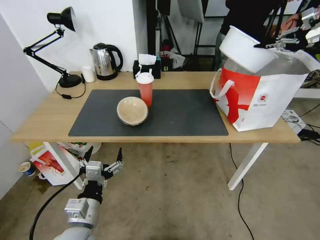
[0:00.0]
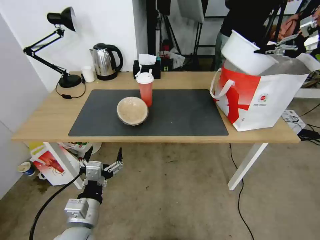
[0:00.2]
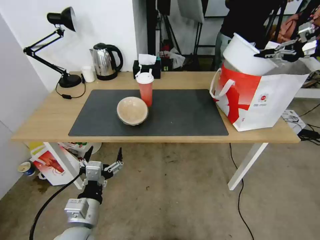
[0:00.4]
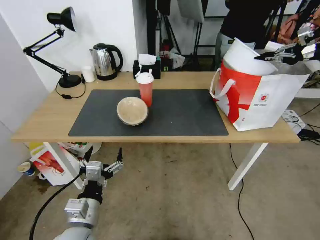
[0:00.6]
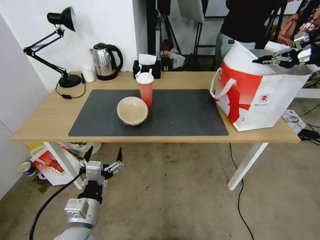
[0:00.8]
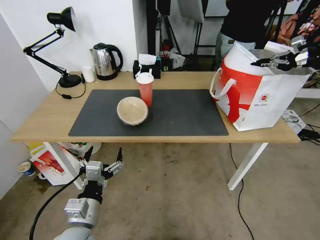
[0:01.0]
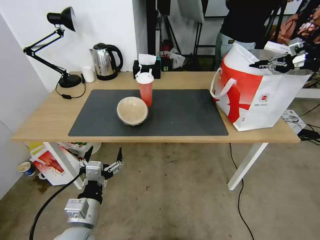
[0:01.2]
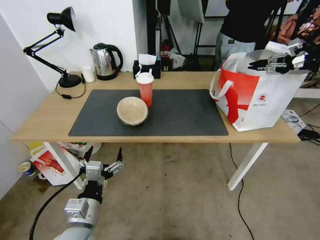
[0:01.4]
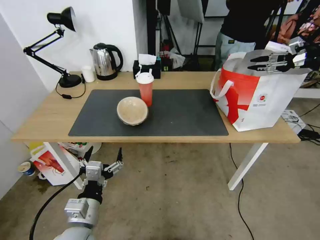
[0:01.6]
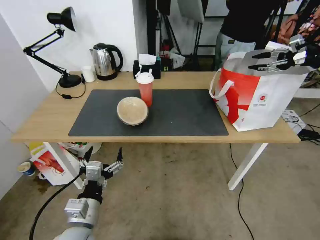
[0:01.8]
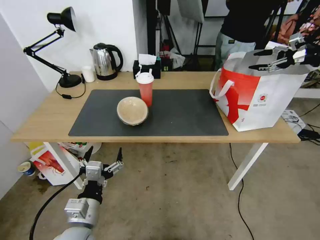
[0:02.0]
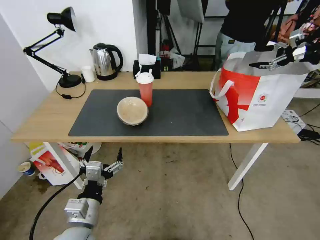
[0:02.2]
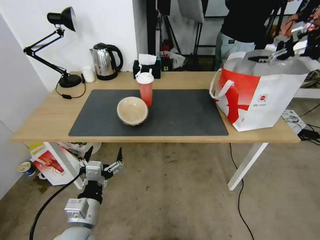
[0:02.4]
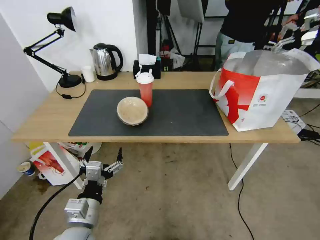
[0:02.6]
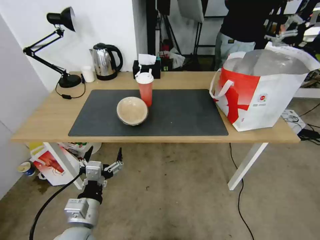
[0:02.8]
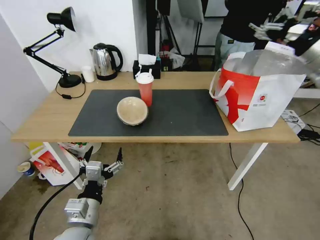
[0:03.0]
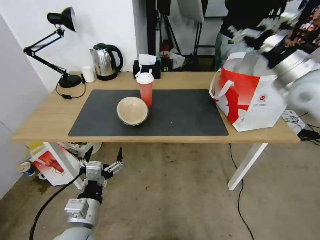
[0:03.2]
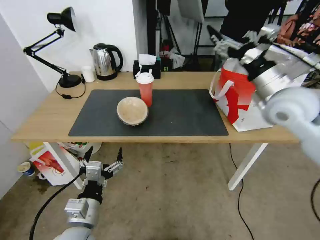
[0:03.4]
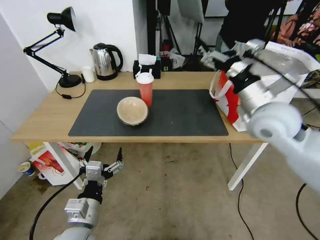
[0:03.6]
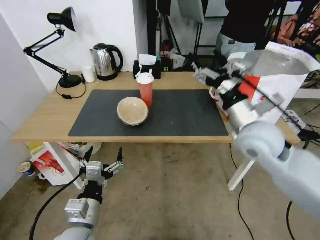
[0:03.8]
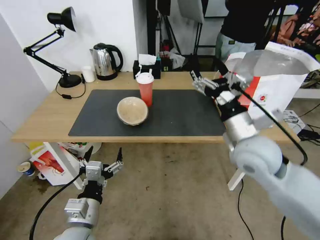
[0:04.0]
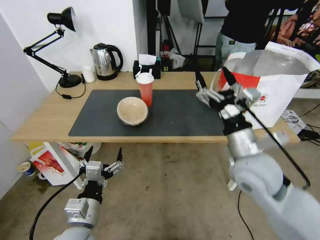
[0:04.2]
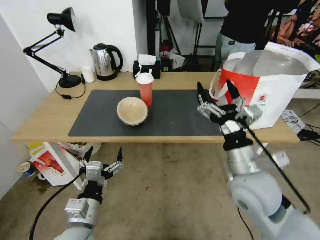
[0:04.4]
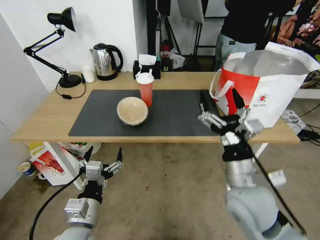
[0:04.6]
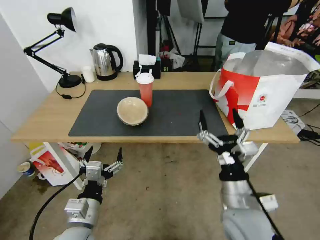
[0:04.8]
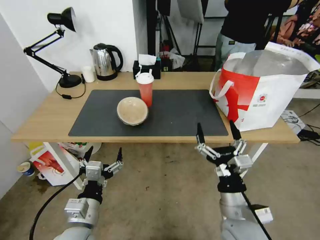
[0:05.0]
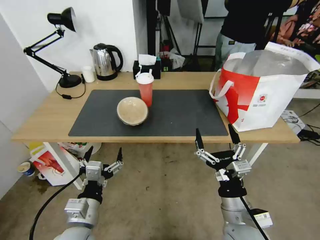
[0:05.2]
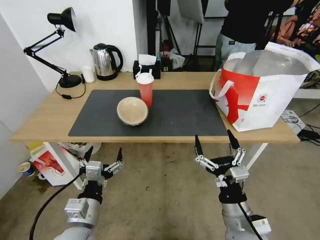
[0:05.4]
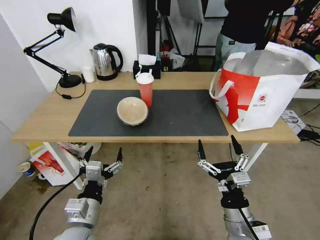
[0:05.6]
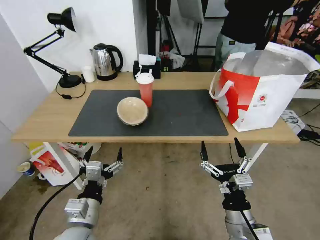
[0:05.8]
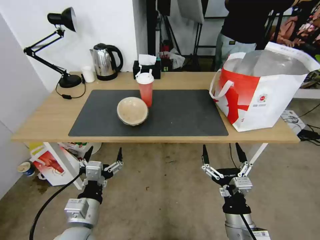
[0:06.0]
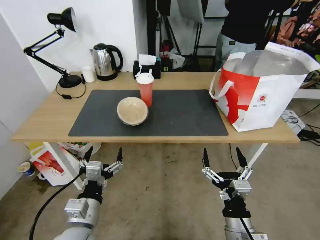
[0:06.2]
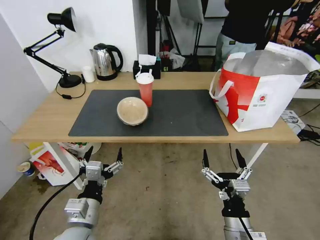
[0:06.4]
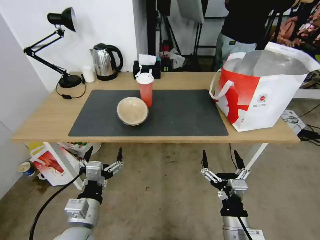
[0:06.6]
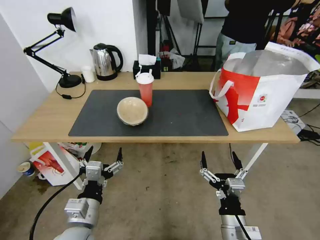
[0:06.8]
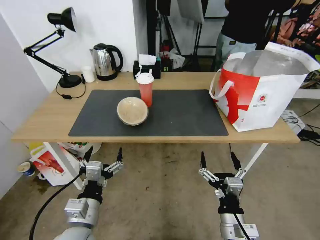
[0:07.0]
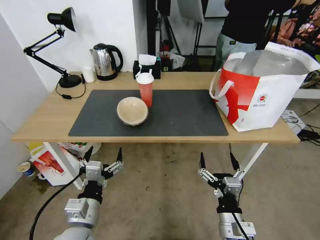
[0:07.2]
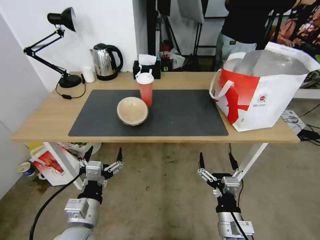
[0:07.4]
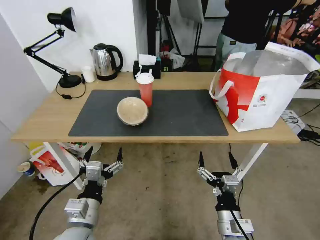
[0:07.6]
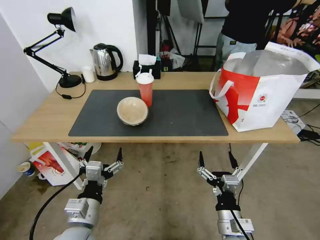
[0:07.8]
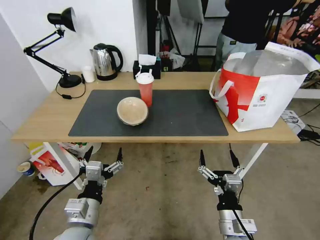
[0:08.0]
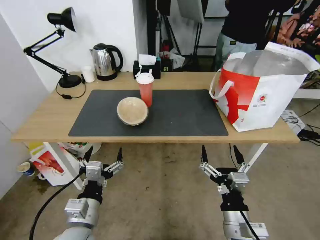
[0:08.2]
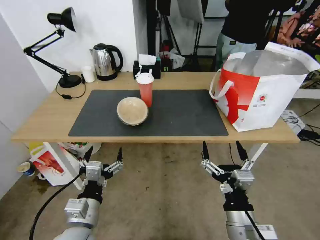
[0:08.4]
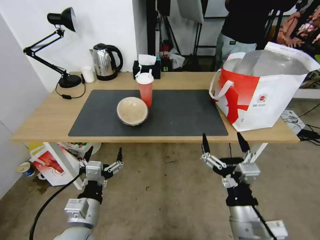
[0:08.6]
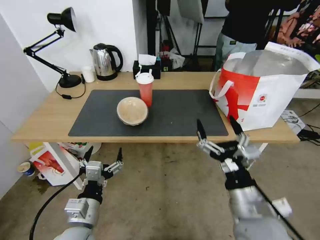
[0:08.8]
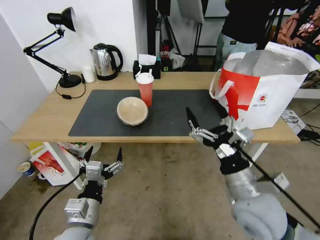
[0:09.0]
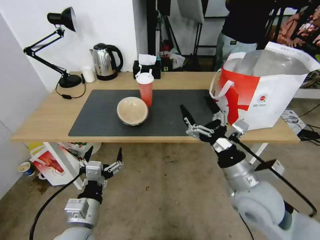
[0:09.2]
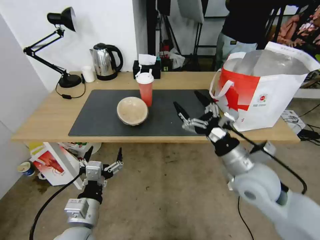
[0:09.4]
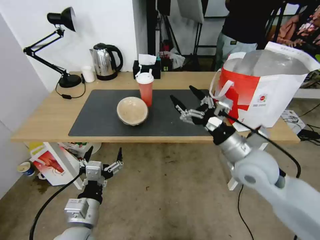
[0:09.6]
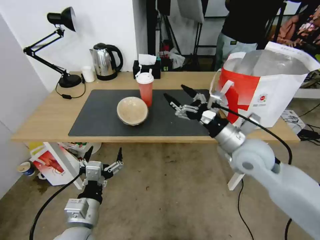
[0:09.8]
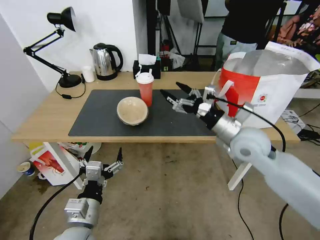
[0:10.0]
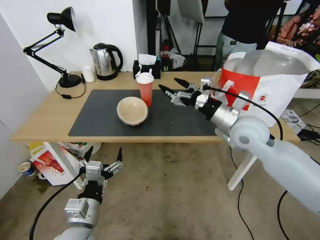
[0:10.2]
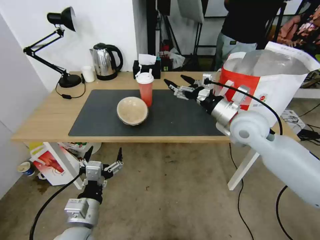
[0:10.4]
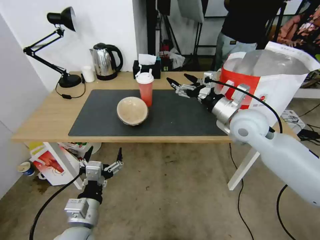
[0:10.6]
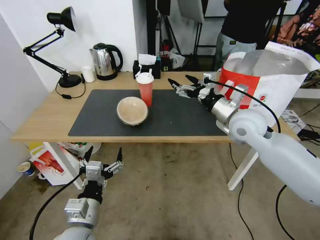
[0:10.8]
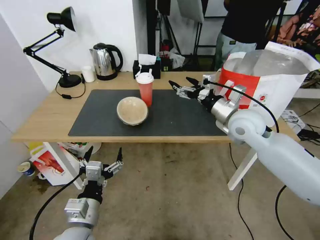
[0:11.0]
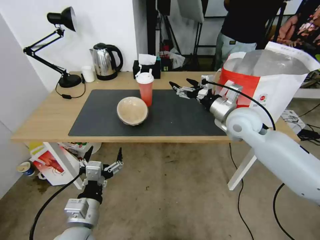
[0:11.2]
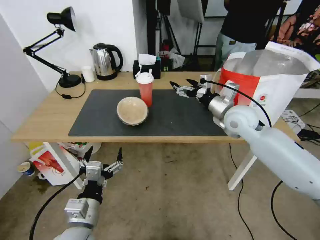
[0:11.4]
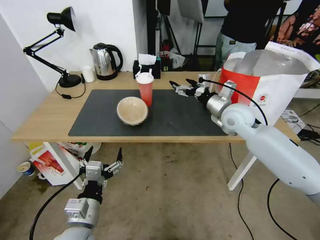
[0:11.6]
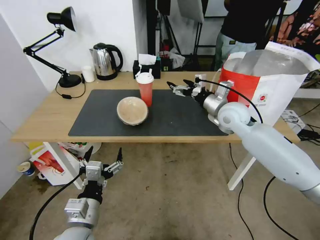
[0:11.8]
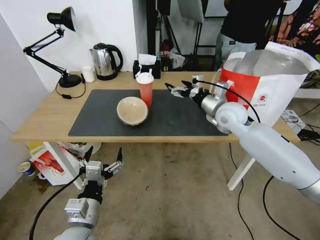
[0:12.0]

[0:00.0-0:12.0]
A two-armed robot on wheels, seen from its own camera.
Task of the whole recording: Pick up the trash from the table and place it into the takeout bag.
0:00.0 to 0:01.6: The right gripper moves downward, approximately 10 cm, and opens.
0:01.6 to 0:03.0: The right gripper moves to the left and backward, roughly 15 cm, and opens up.
0:03.0 to 0:04.4: The right gripper travels to the left, backward and downward by approximately 40 cm.
0:04.4 to 0:06.0: The right gripper goes about 15 cm downward and backward.
0:06.0 to 0:07.6: There are only small adjustments of the grippers.
0:07.6 to 0:09.0: The right gripper heads upward and forward, covering approximately 15 cm.
0:09.0 to 0:10.4: The right gripper goes some 20 cm forward.
0:10.4 to 0:12.0: The right gripper goes approximately 10 cm forward.

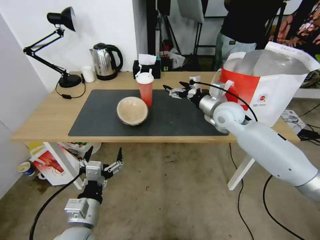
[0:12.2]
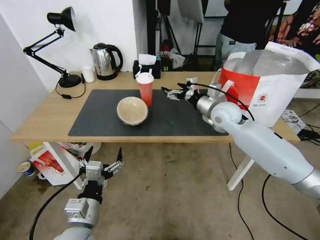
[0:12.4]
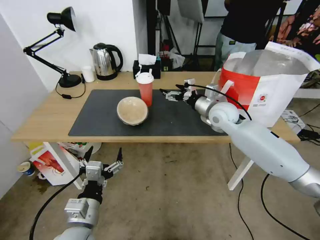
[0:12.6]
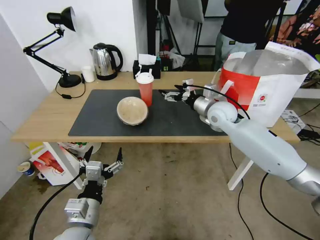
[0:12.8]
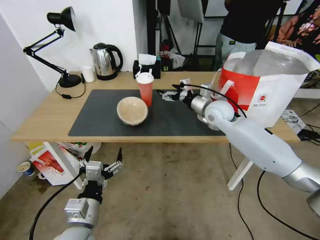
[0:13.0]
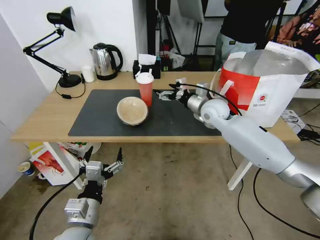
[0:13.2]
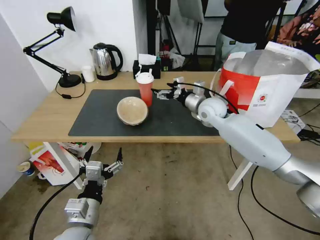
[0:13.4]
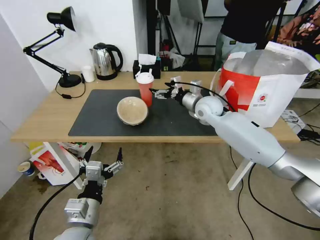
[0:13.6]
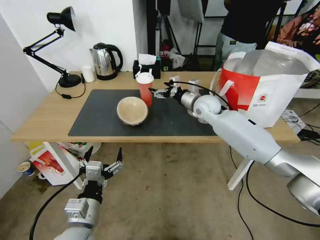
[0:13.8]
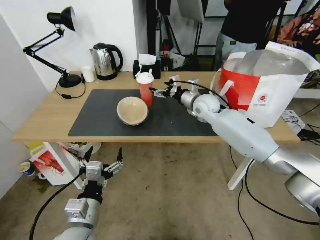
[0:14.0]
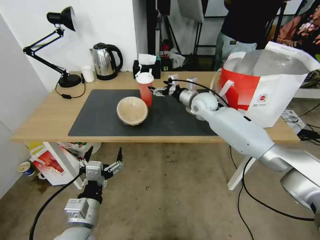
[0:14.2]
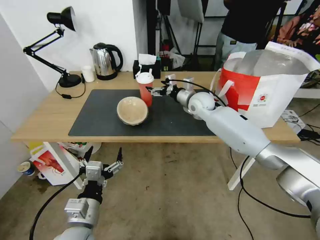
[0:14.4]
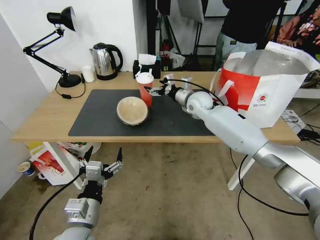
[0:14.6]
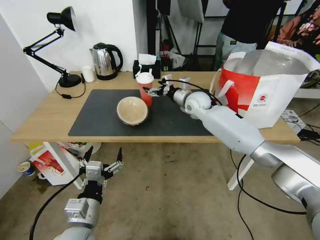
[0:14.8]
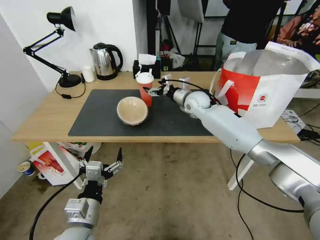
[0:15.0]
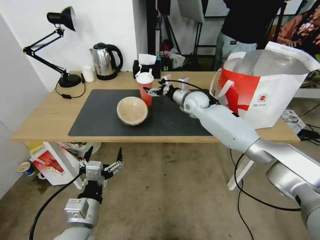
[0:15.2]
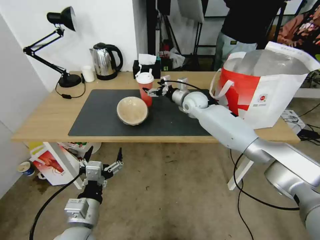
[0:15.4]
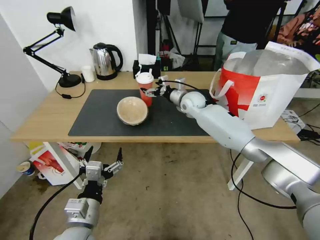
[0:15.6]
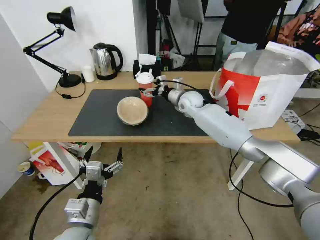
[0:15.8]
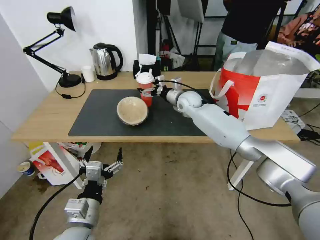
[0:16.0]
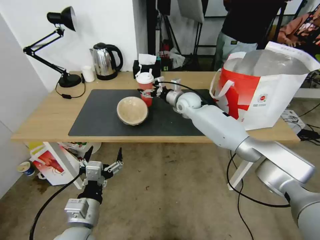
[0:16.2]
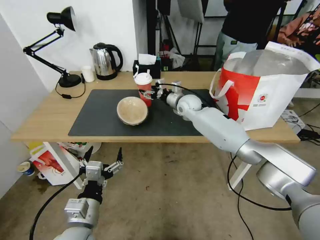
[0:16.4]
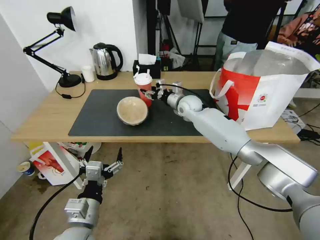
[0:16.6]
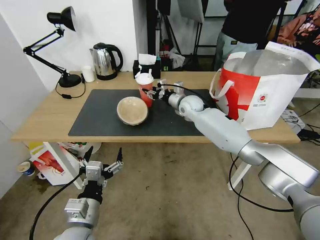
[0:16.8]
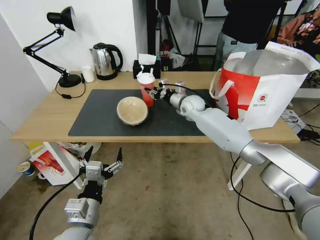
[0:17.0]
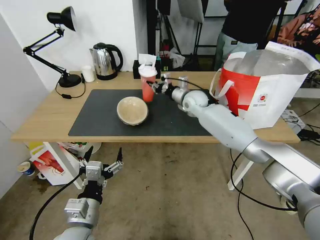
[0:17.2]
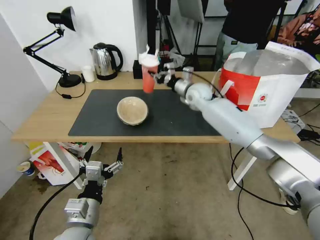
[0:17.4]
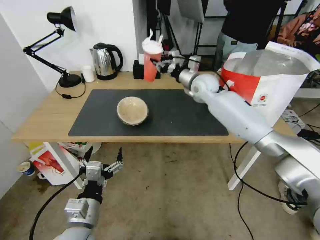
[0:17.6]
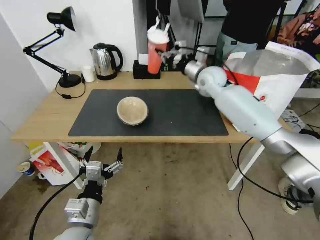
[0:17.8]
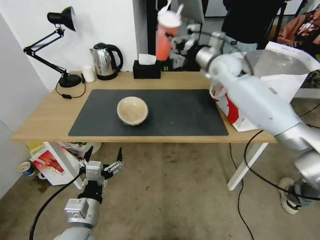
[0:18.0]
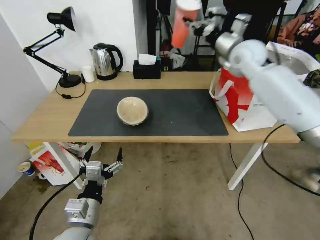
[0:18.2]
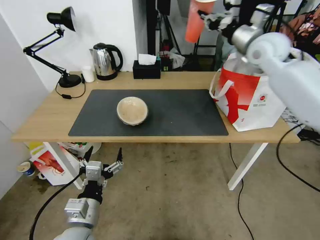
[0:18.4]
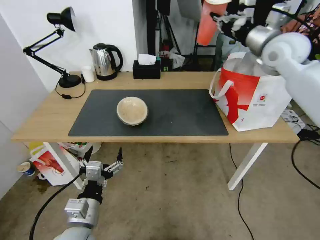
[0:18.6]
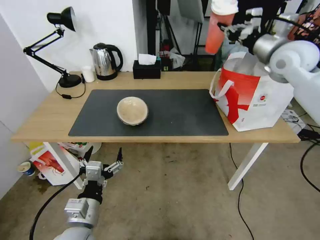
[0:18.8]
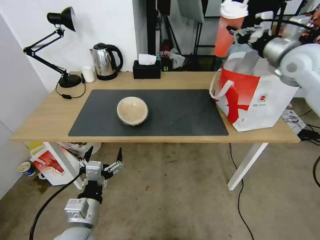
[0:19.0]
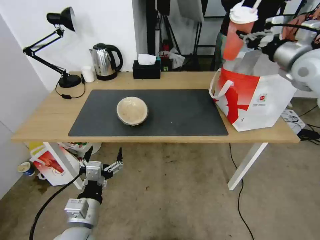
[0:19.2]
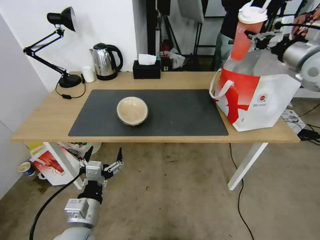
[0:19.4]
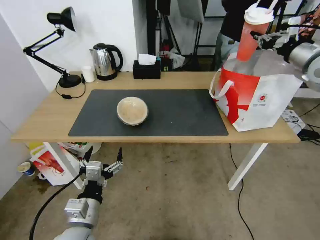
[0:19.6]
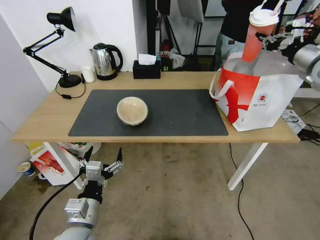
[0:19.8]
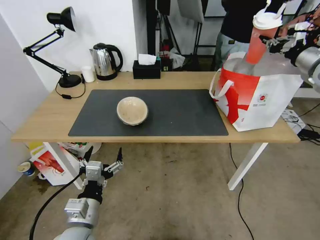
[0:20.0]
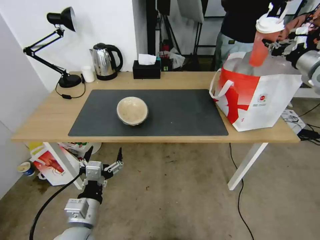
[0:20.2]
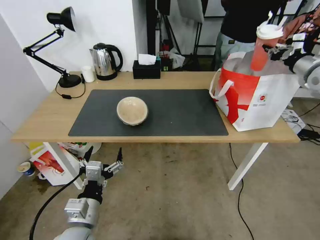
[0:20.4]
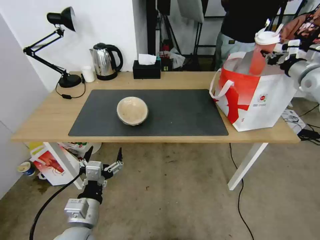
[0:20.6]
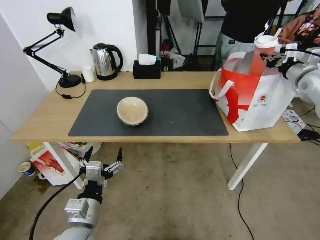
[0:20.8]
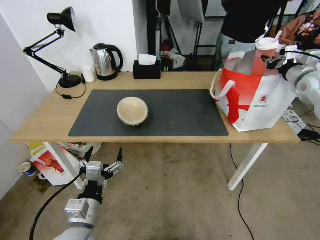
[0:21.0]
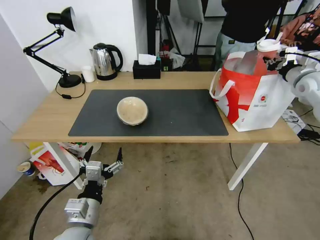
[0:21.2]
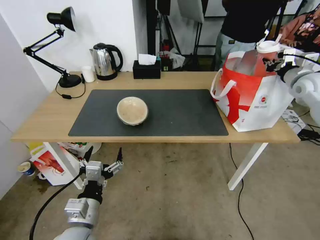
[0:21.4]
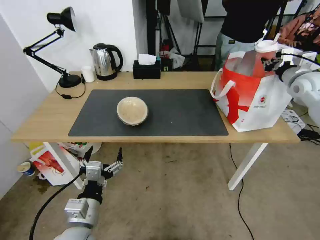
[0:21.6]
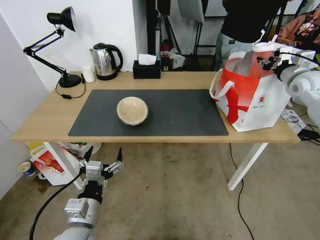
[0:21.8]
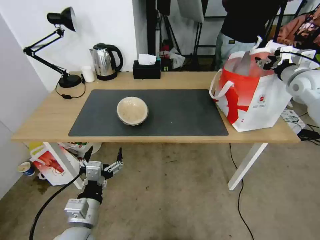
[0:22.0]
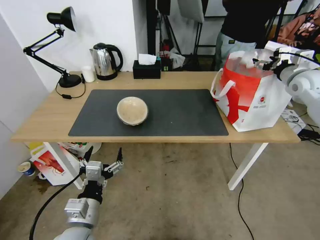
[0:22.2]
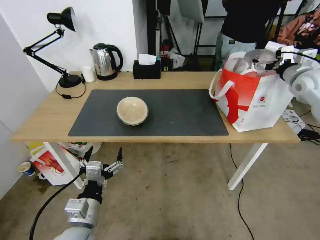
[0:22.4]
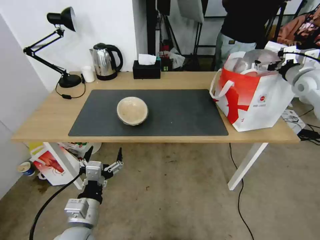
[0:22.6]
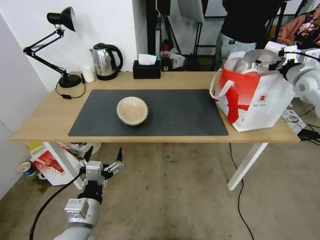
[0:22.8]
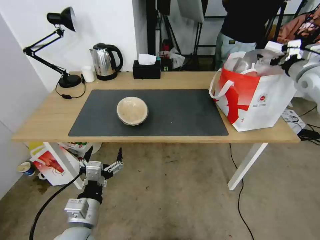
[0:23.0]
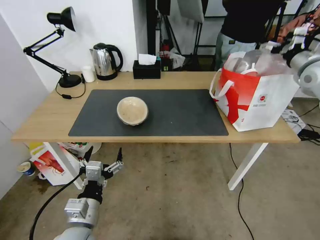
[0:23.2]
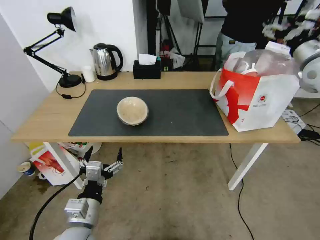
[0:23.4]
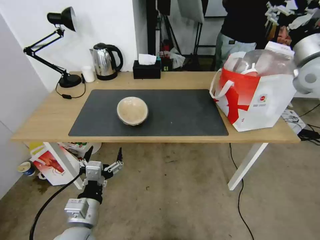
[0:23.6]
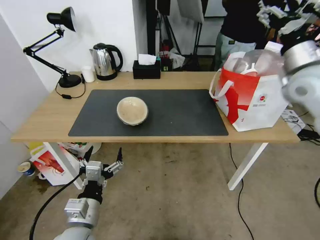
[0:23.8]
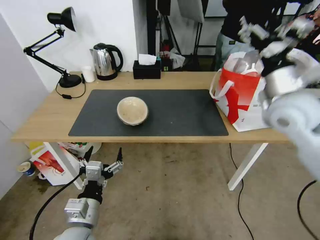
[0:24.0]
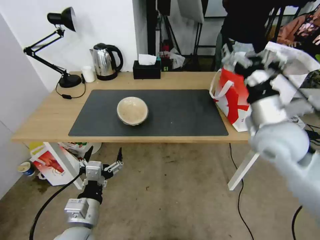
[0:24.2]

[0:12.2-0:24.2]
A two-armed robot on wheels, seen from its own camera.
Task of the whole recording: Pick up the trash from the table and place it into the takeout bag.
0:12.2 to 0:13.8: The right gripper goes about 10 cm forward and to the left.
0:13.8 to 0:15.2: The right gripper changes place by roughly 5 cm.
0:15.2 to 0:16.6: The right gripper closes its fingers.
0:16.6 to 0:18.2: The right gripper is displaced upward and to the right by roughly 25 cm, and closes.
0:18.2 to 0:19.8: The right gripper heads to the right and backward, covering approximately 25 cm.
0:19.8 to 0:21.2: The right gripper goes roughly 10 cm downward.
0:21.2 to 0:22.6: The right gripper opens.
0:22.6 to 0:24.2: The right gripper goes about 30 cm to the left and backward.
